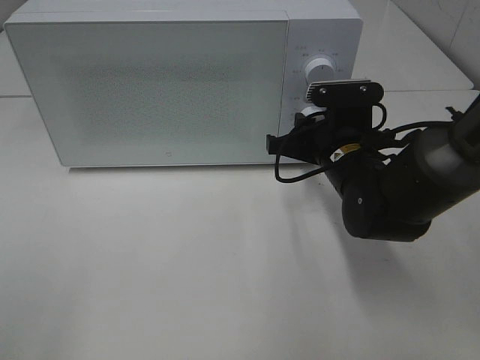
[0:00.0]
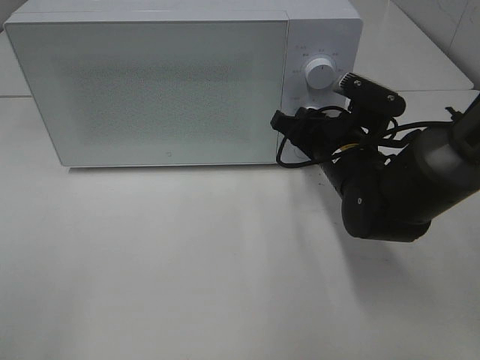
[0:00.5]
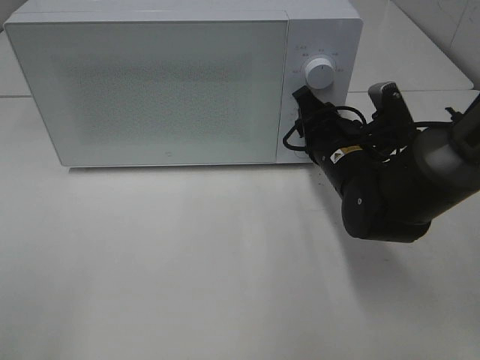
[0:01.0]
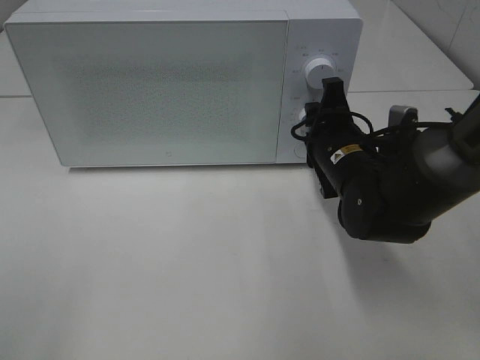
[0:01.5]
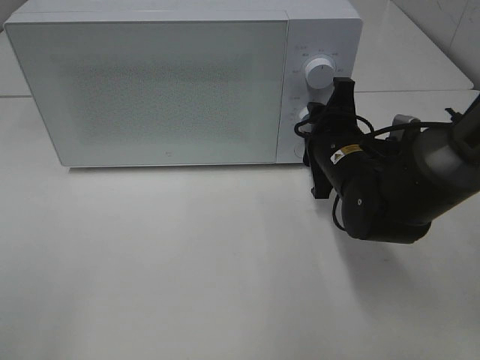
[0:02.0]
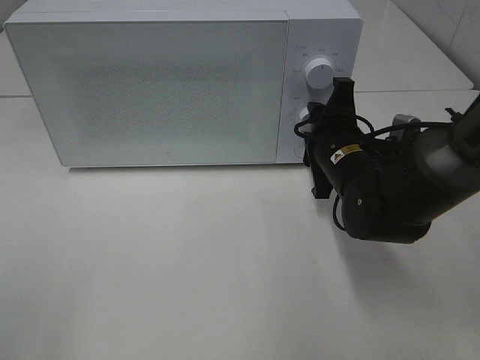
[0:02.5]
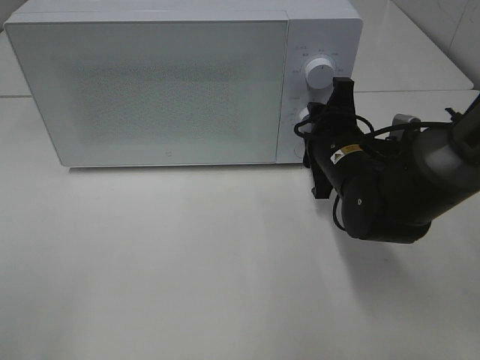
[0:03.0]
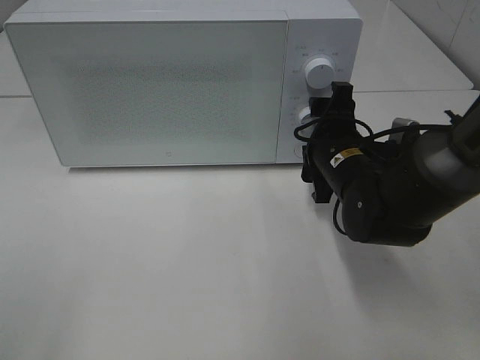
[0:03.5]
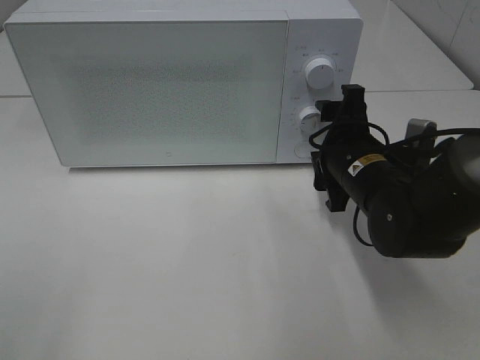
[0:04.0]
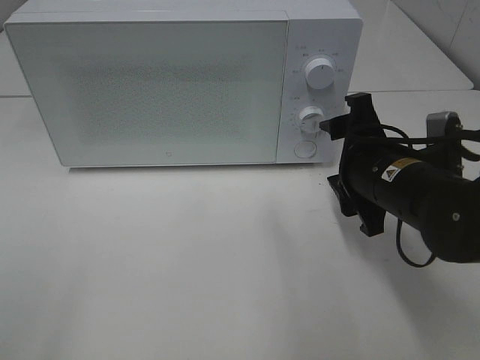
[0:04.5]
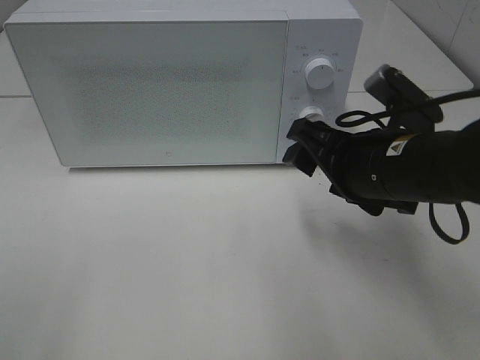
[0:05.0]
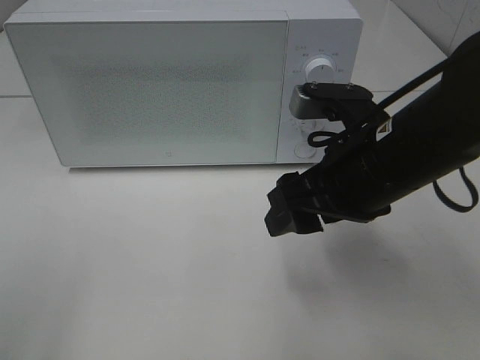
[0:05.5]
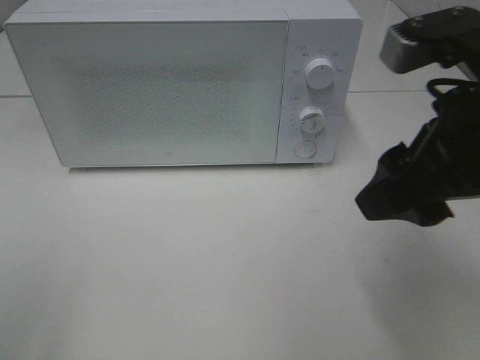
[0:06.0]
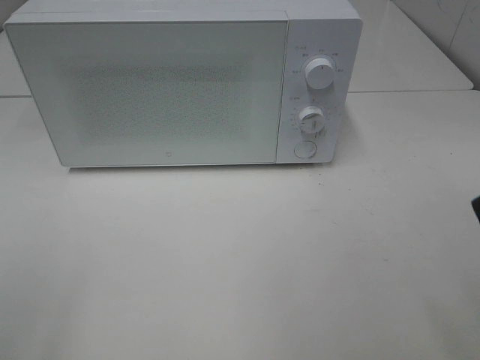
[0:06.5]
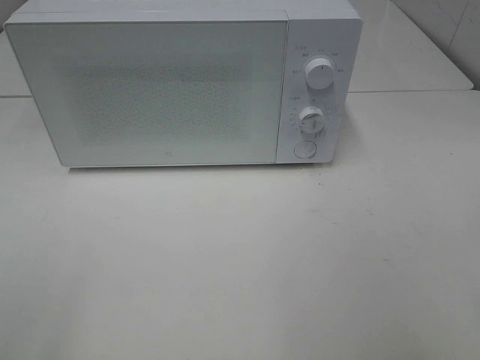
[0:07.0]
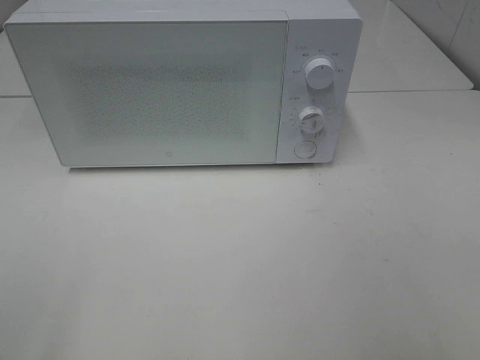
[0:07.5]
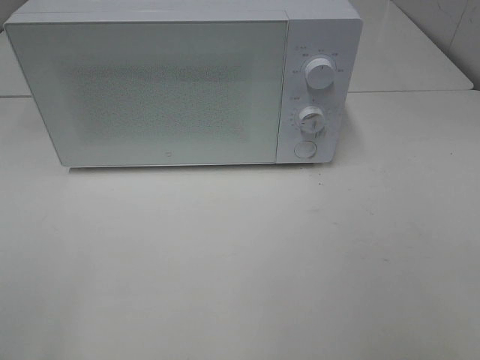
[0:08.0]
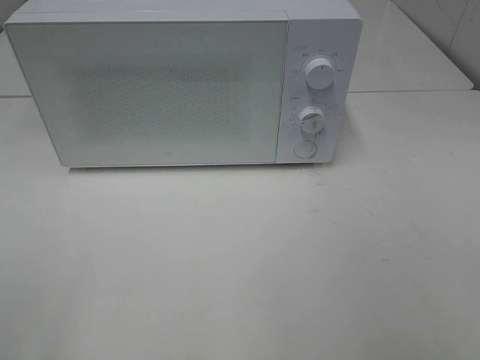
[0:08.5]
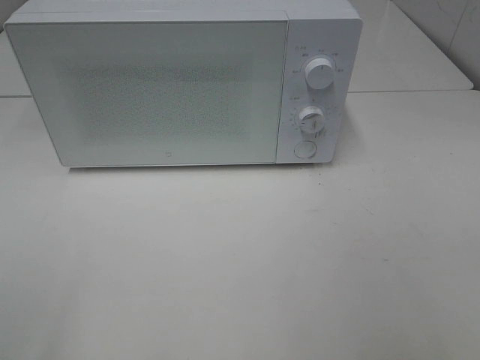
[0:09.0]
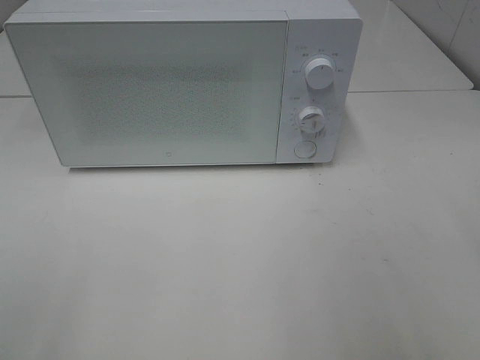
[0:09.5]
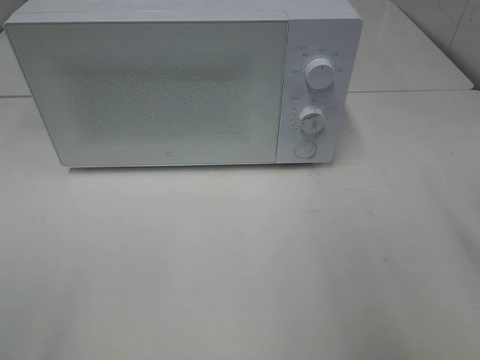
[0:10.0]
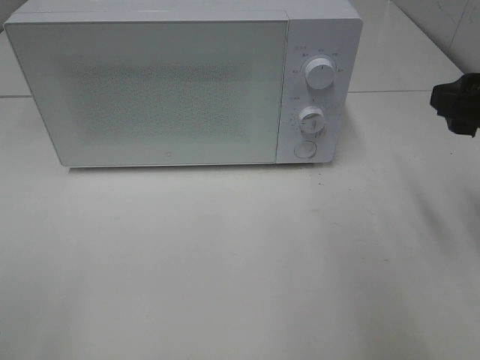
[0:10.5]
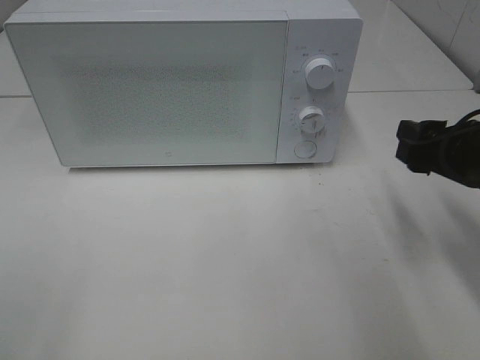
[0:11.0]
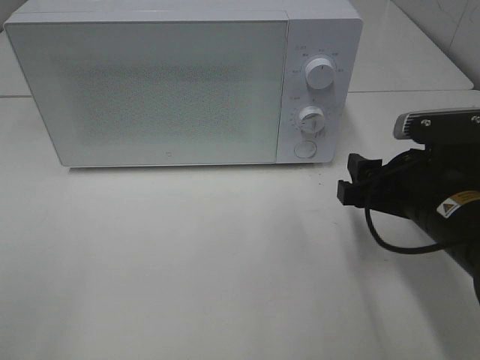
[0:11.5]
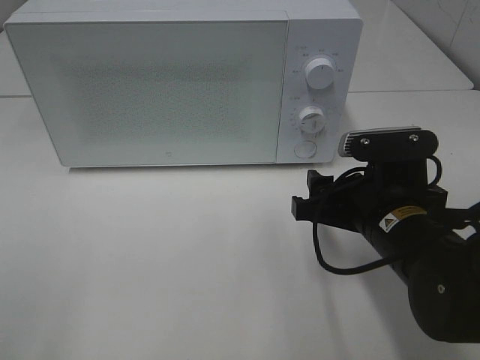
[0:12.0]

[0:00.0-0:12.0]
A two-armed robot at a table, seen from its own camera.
Task of the whole recording: Heat Sandwich.
Step, 0:00.0 to 0:04.0: Right hand: twist timer button.
0:02.0 to 0:04.0: There are only small adjustments of the grippers.
0:04.0 to 0:06.0: The right gripper travels upward and backward by about 20 cm.
0:06.0 to 0:08.0: The right gripper shifts approximately 20 cm backward and to the right.
0:10.0 to 0:12.0: The right gripper moves downward and to the left, about 20 cm.

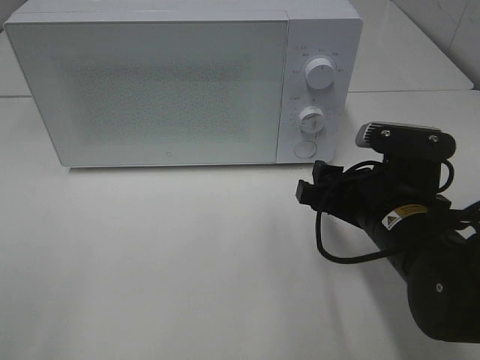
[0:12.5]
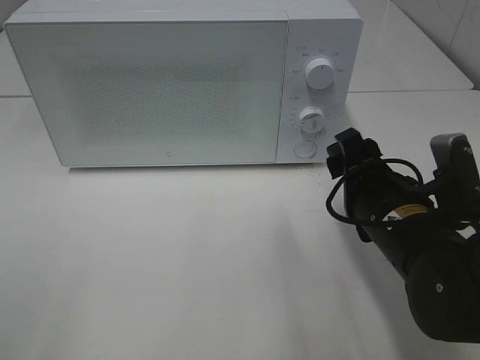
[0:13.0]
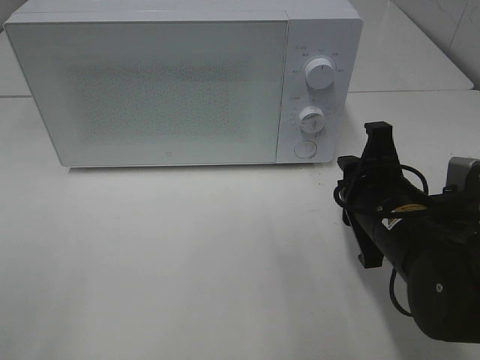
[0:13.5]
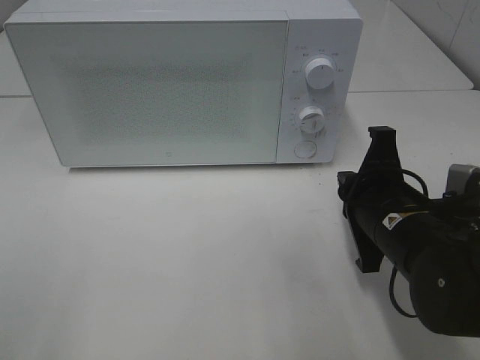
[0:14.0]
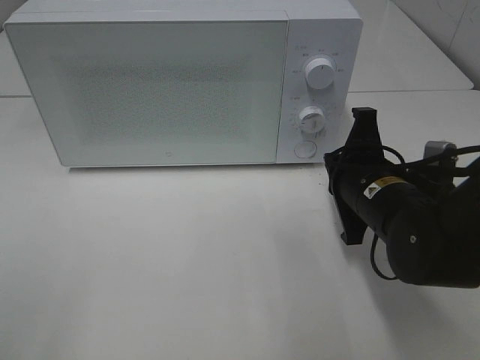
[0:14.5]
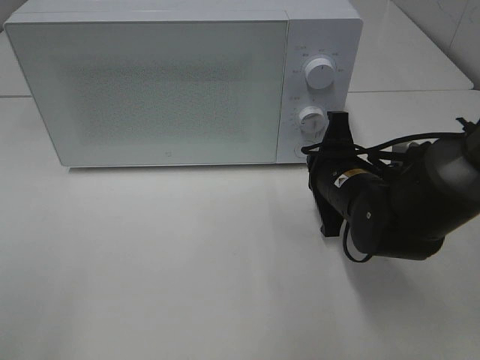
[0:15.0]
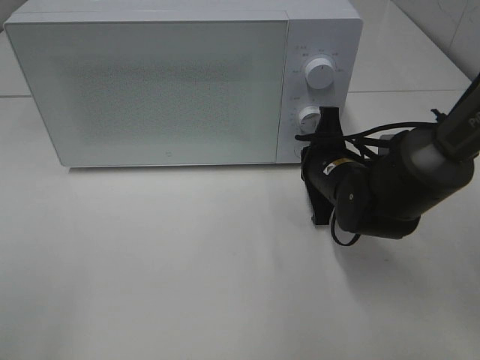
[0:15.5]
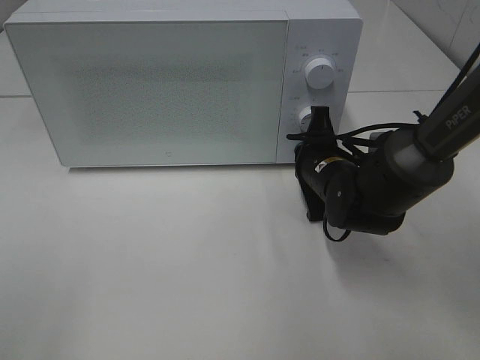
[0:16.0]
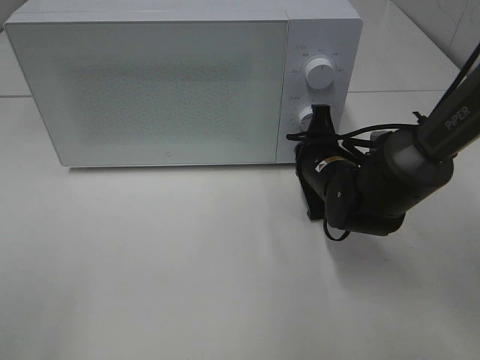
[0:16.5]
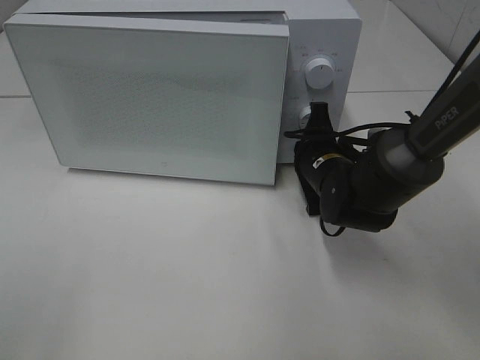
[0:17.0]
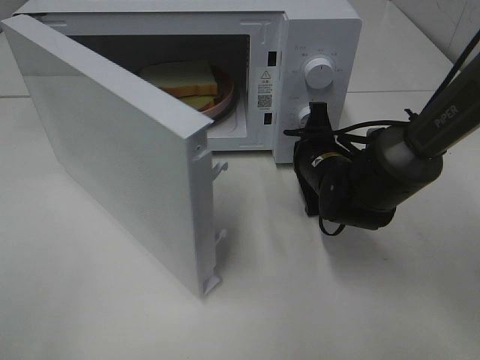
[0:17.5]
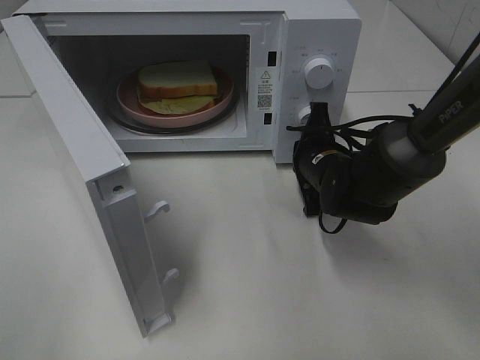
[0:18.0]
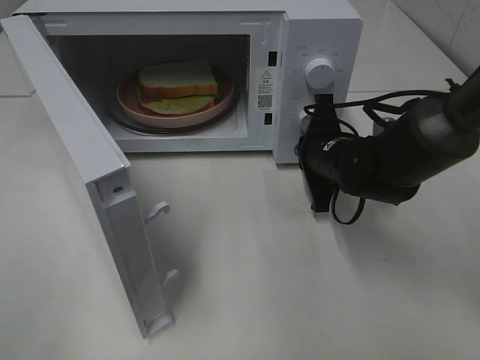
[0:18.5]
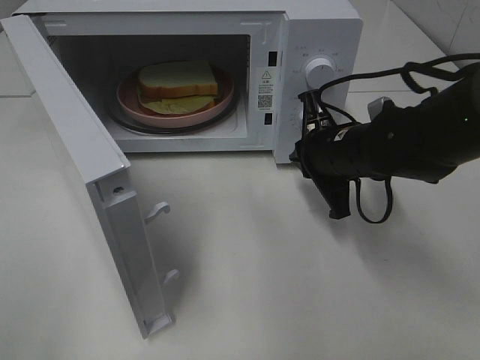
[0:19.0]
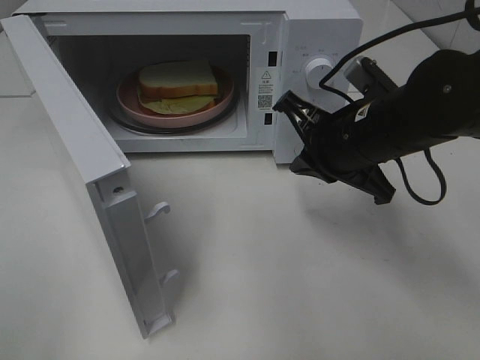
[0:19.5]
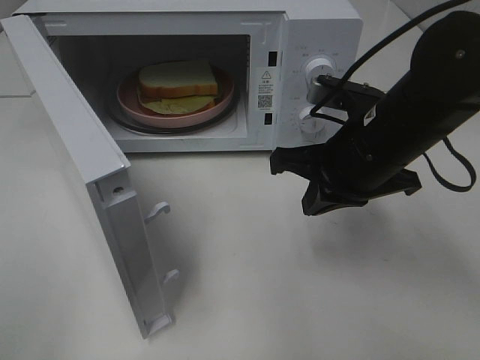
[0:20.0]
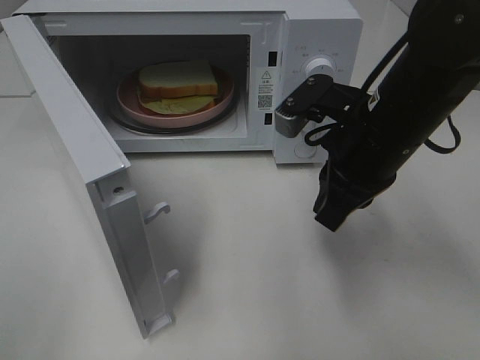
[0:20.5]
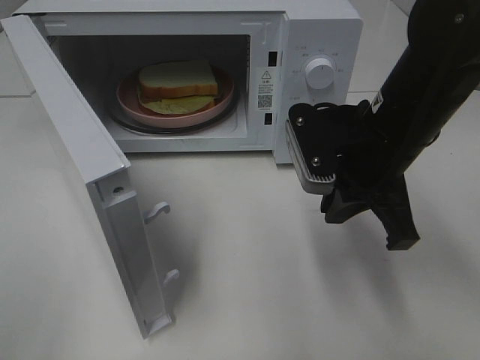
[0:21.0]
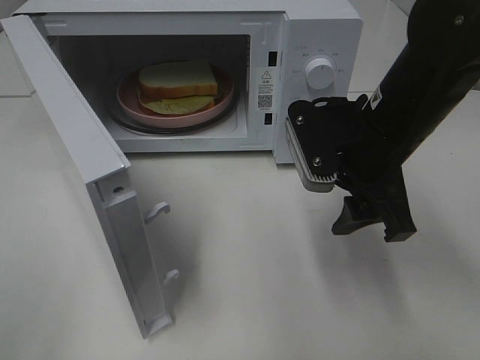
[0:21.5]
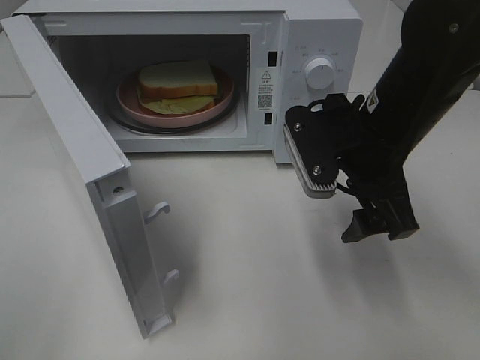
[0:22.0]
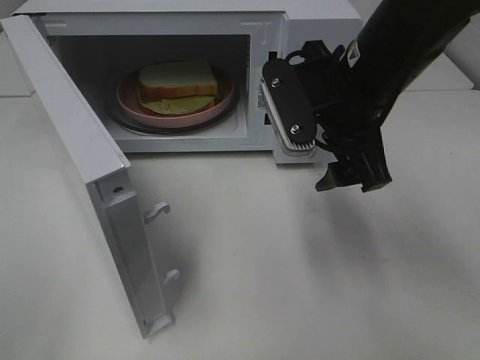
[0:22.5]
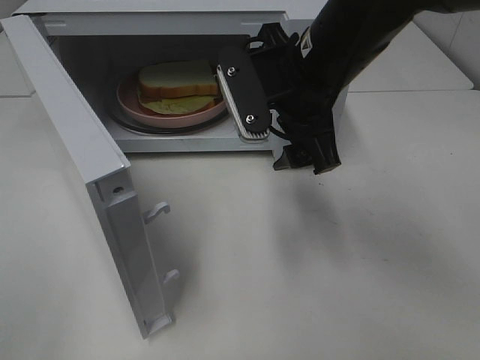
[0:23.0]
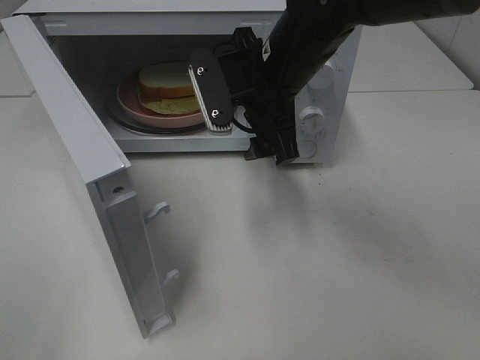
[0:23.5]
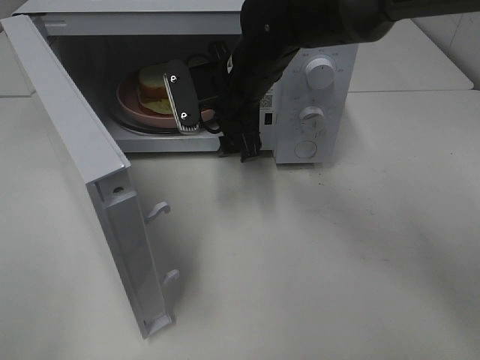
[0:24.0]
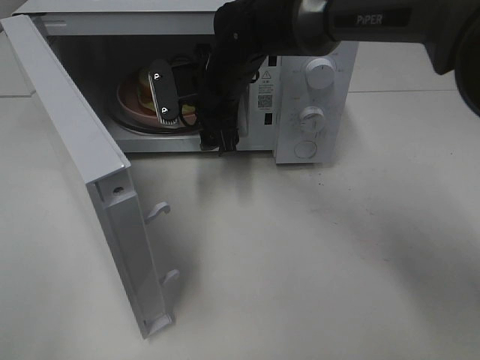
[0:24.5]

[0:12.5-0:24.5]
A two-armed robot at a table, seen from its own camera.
Task of the whole recording: Heat Sandwich.
Step, 0:12.5 to 0:18.5: Right hand: press the switch.
0:12.5 to 0:14.5: The right gripper closes its fingers.
0:14.5 to 0:16.5: The right gripper is displaced forward by about 10 cm.
0:18.5 to 0:20.5: The right gripper moves upward and backward, some 15 cm.
0:20.5 to 0:22.5: The right gripper ends up approximately 5 cm from where it was, and opens its fingers.
0:22.5 to 0:24.5: The right gripper heads forward, to the left and downward, covering about 20 cm.

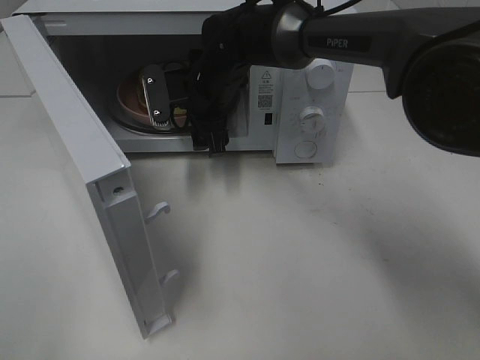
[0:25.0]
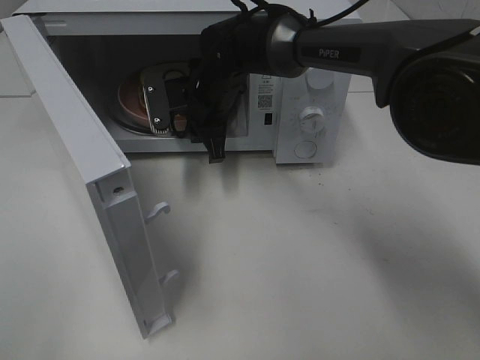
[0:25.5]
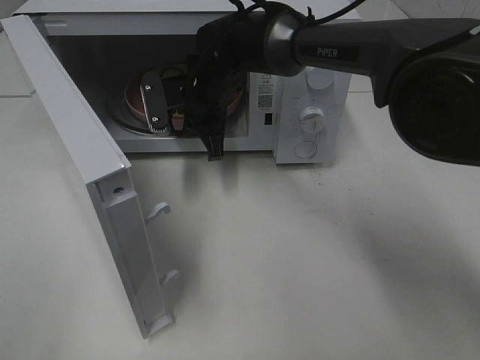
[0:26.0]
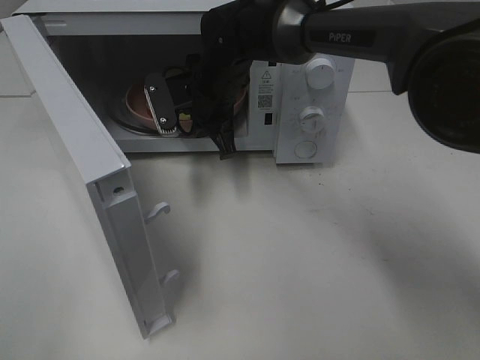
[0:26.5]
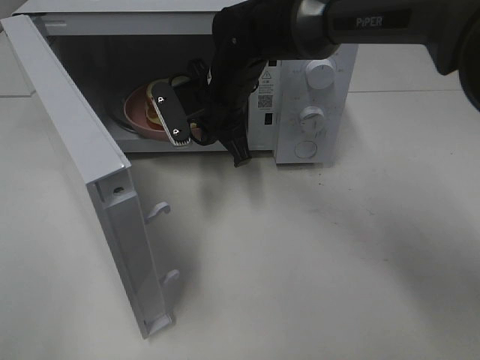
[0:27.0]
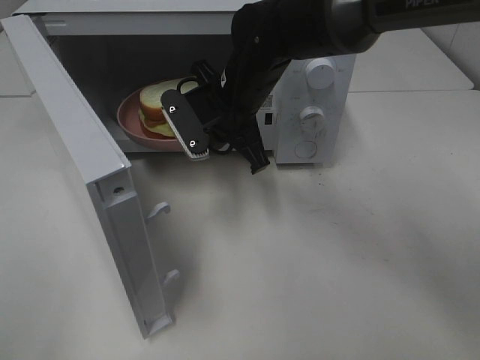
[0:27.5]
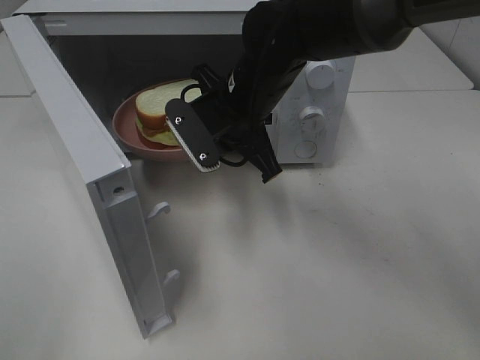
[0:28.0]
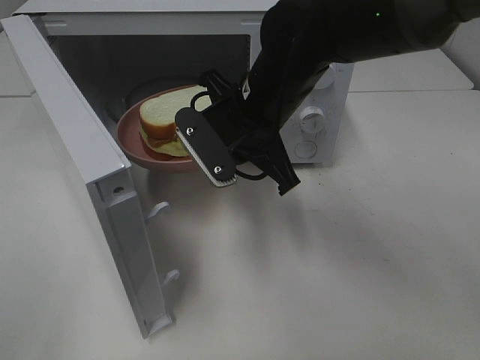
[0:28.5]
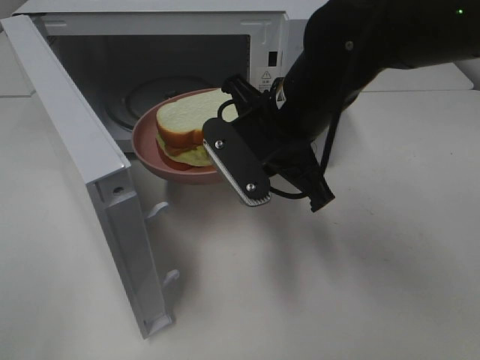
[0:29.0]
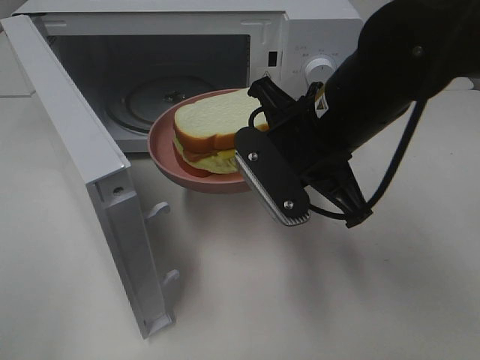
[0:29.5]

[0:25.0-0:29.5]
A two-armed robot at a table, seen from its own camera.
Task of the whole recording: Heat Sandwich.
0:25.0 to 0:27.0: The right gripper closes its fingers.
0:27.0 to 0:29.5: The right gripper heads backward and to the right, covering about 20 cm.
